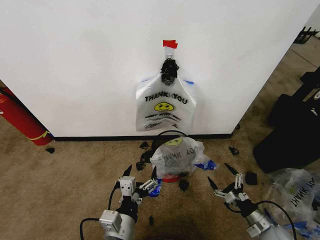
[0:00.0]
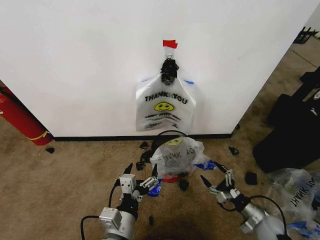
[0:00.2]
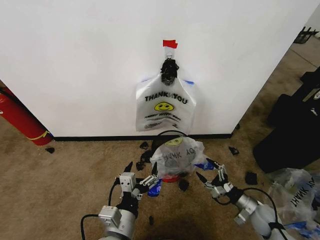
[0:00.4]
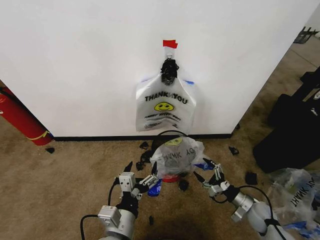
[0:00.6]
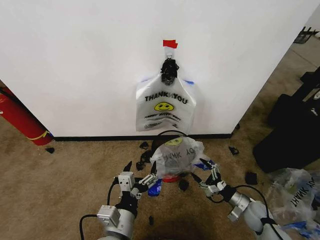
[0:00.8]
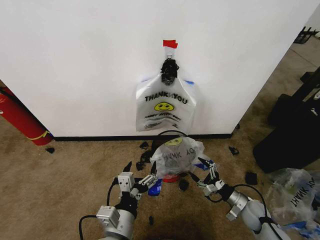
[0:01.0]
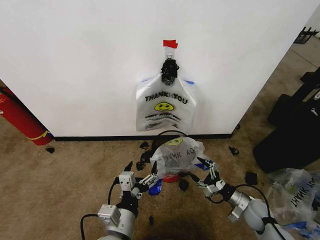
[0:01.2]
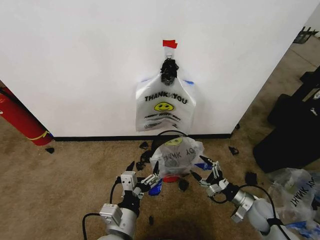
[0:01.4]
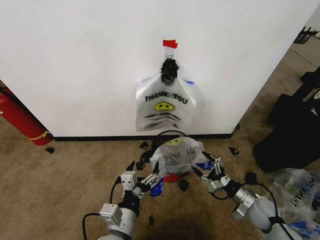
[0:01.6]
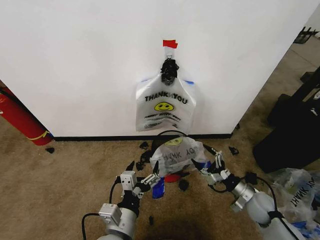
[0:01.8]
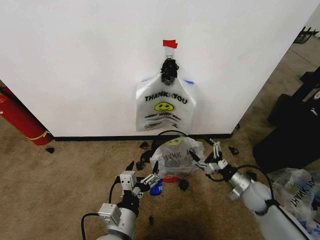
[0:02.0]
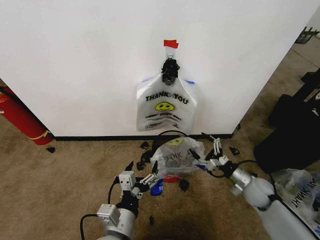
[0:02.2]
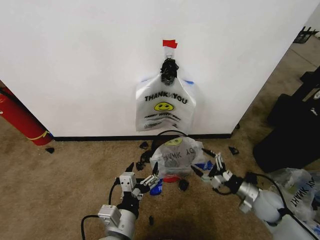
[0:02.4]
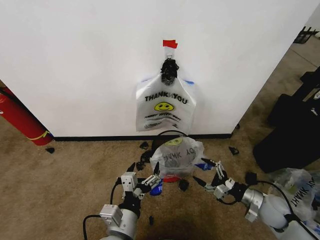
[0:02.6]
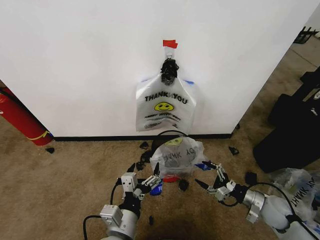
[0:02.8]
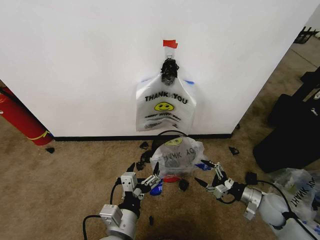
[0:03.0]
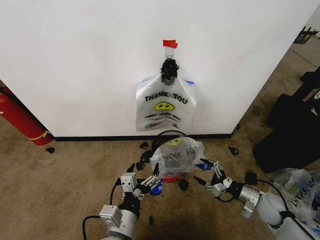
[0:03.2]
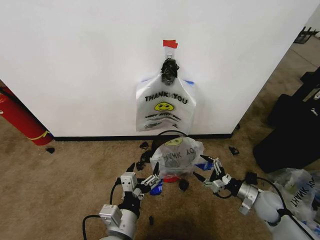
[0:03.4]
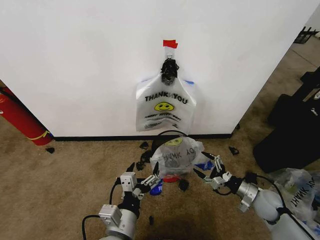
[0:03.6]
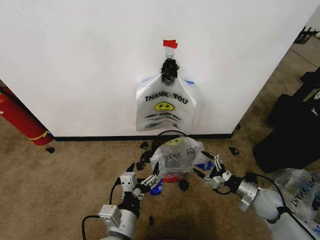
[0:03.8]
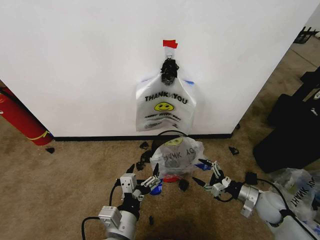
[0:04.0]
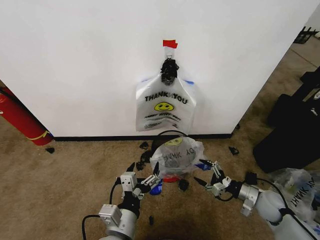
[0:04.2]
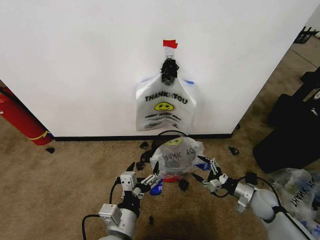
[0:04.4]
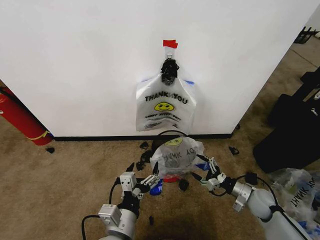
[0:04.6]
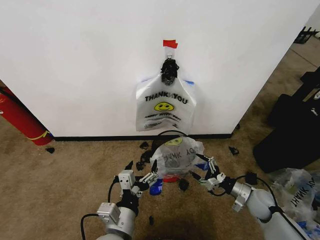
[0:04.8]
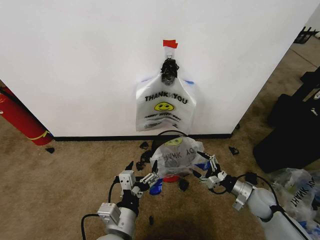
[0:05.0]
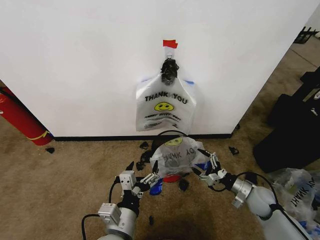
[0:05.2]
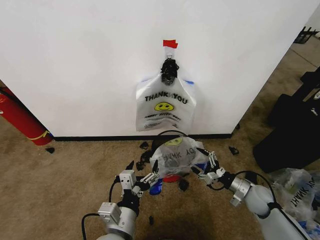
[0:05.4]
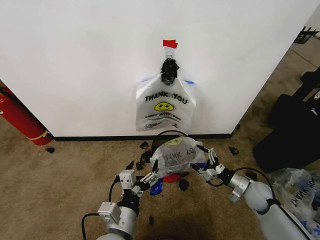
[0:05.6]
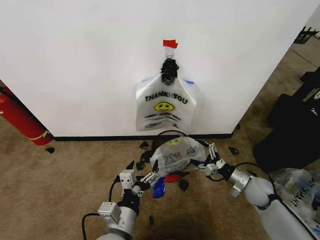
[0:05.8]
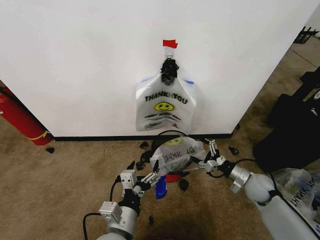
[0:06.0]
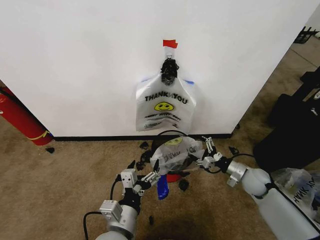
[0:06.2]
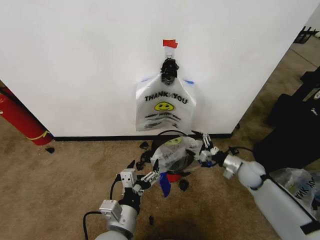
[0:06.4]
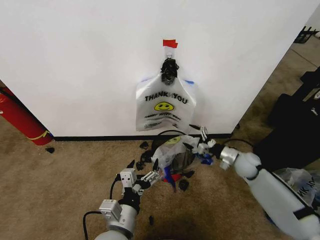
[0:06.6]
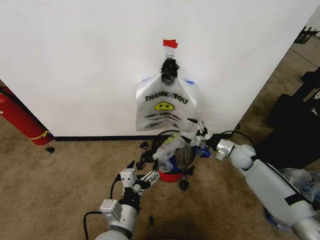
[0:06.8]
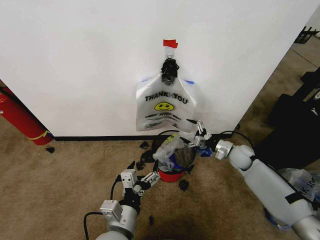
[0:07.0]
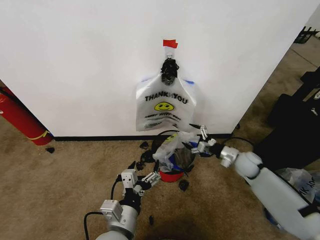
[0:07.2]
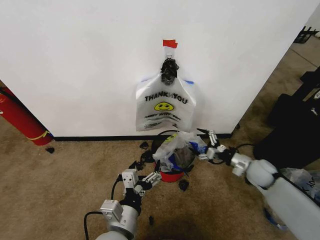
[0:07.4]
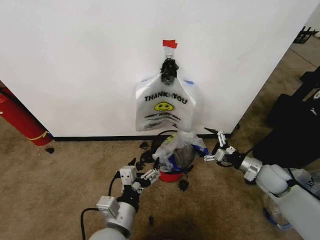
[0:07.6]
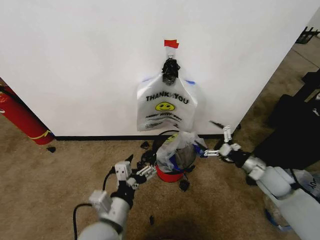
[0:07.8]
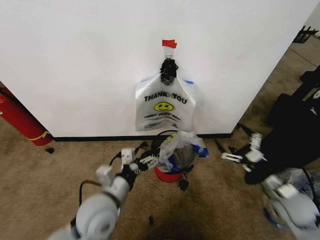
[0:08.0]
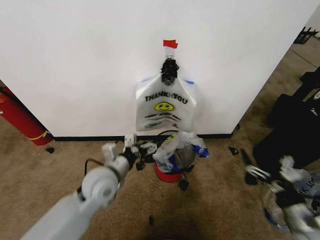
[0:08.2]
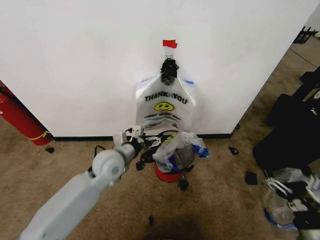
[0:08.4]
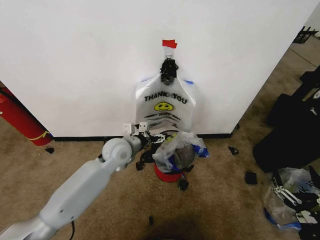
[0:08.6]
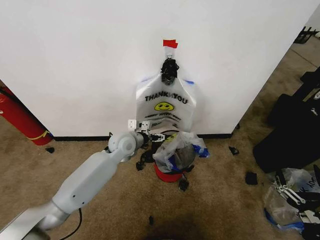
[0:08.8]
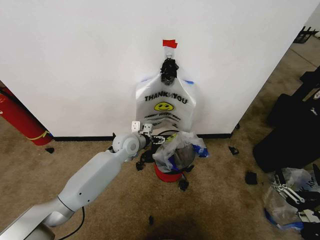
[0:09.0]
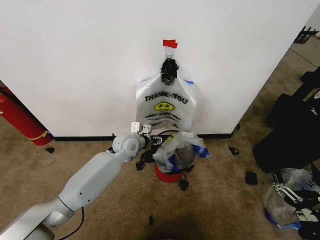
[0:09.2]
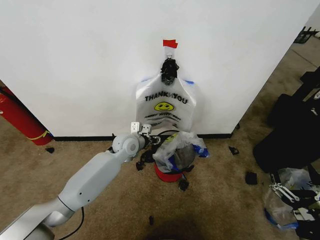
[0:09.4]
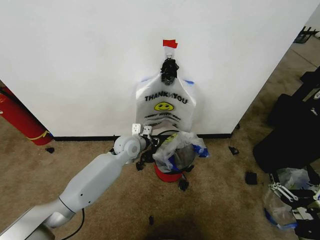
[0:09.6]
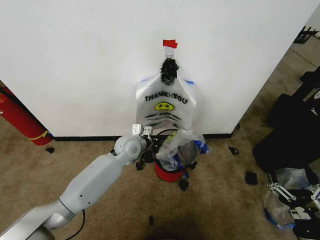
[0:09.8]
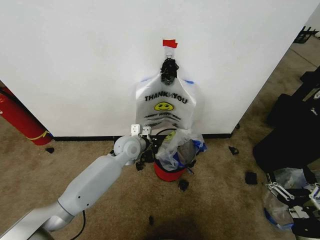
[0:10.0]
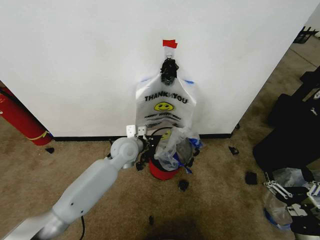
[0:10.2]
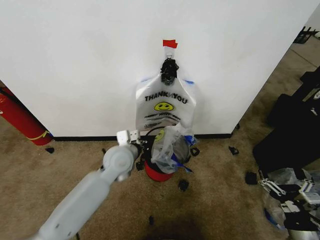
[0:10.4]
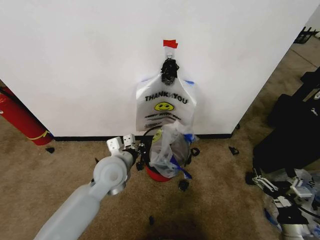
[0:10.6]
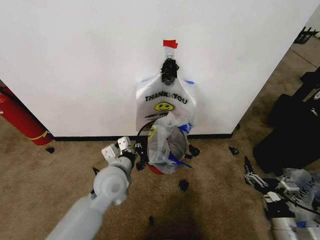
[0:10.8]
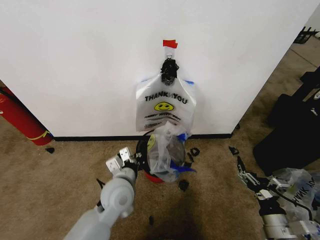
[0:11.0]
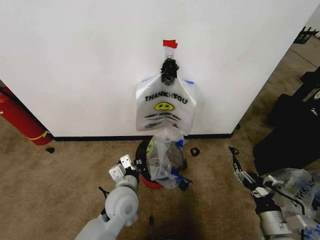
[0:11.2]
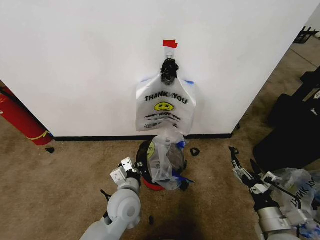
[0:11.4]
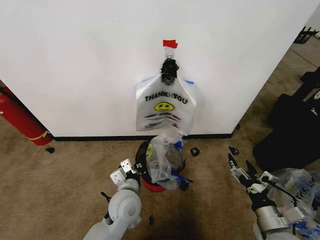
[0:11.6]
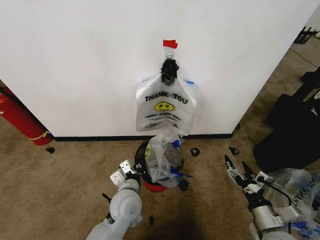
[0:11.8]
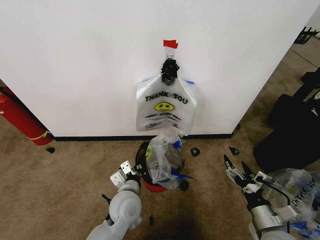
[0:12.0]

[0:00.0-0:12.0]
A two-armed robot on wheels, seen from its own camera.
Task of the whole recording: Pick up the garbage bag from the wall and place it over the trash bin.
0:00.0 to 0:01.6: The right gripper heads forward, covering approximately 10 cm.
0:03.0 to 0:04.4: There are only small adjustments of the grippers.
0:04.4 to 0:06.0: The right gripper changes place by roughly 5 cm.
0:06.0 to 0:07.6: The right gripper goes some 5 cm upward, and travels forward and back again, roughly 10 cm each way.
0:07.6 to 0:09.0: The left gripper goes some 30 cm forward, while the right gripper goes about 25 cm backward.
0:09.0 to 0:10.4: The left gripper goes roughly 10 cm backward, and closes up.
0:10.4 to 0:12.0: The right gripper travels to the left and forward by approximately 10 cm. Meanwhile the left gripper moves backward and downward, roughly 15 cm.

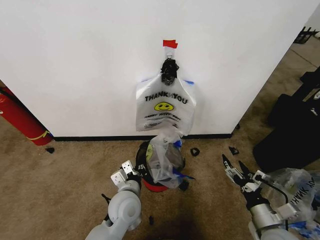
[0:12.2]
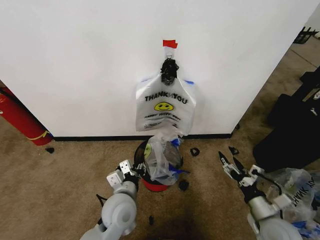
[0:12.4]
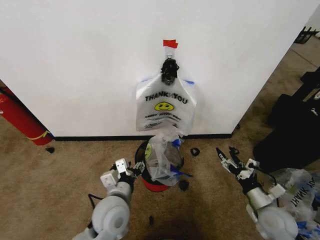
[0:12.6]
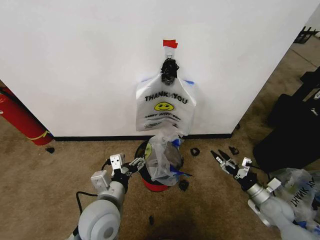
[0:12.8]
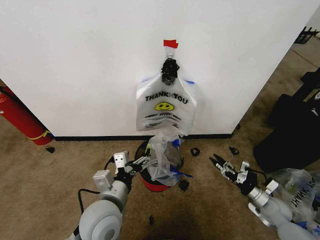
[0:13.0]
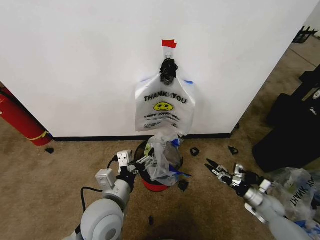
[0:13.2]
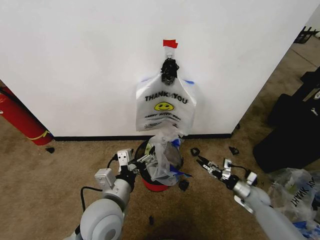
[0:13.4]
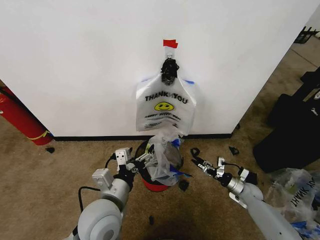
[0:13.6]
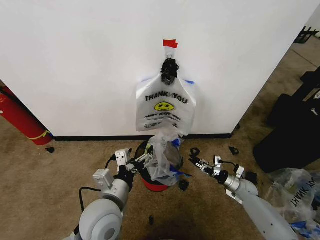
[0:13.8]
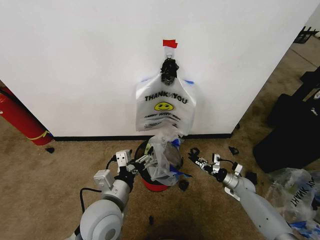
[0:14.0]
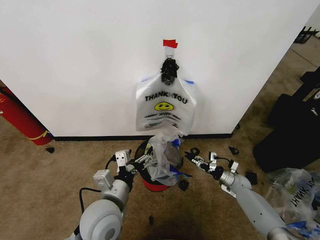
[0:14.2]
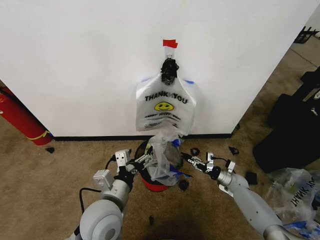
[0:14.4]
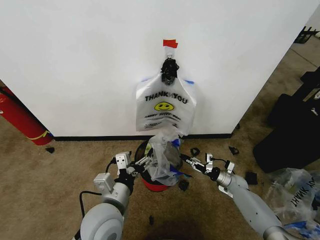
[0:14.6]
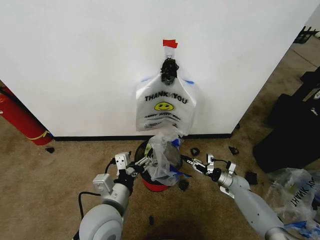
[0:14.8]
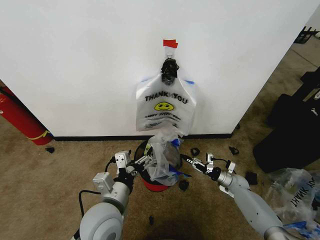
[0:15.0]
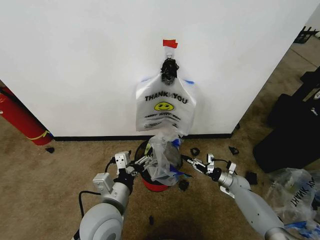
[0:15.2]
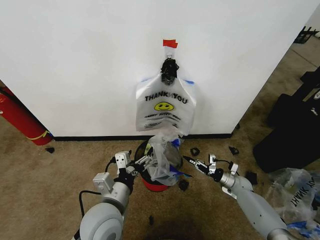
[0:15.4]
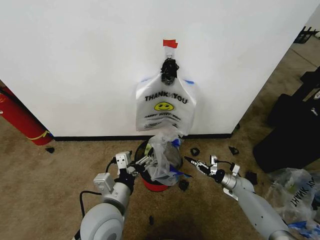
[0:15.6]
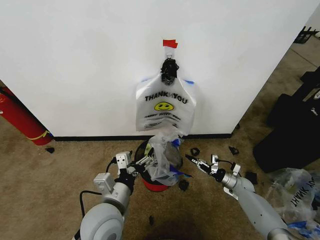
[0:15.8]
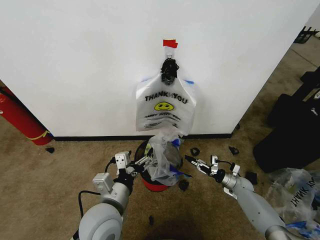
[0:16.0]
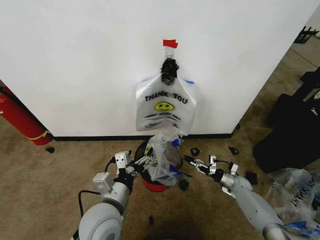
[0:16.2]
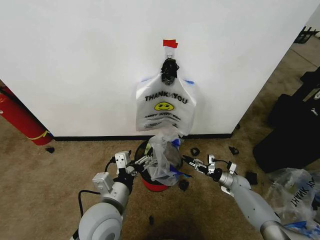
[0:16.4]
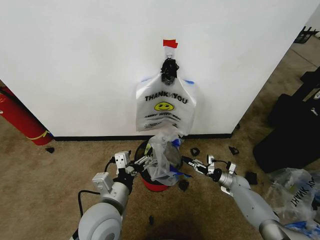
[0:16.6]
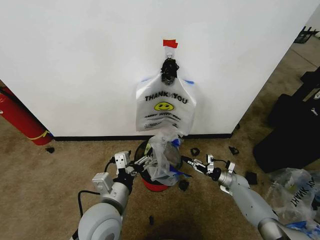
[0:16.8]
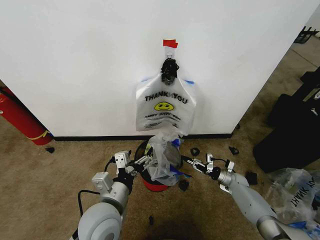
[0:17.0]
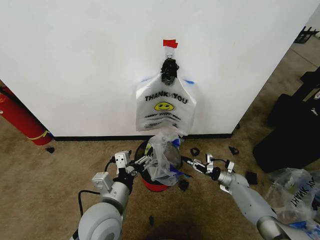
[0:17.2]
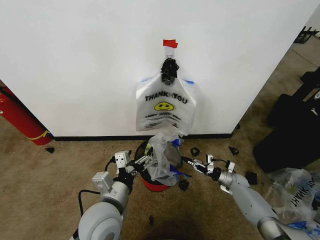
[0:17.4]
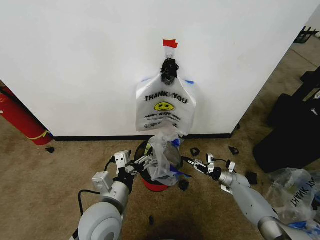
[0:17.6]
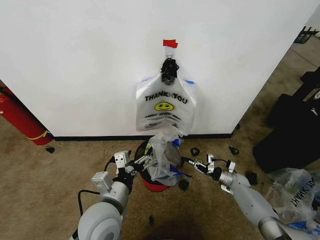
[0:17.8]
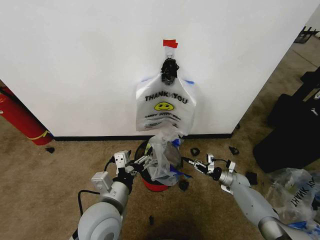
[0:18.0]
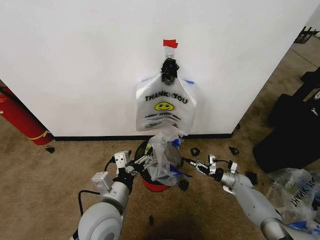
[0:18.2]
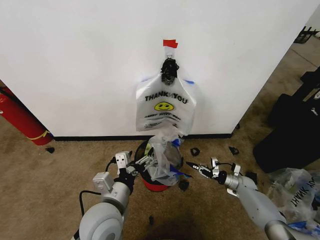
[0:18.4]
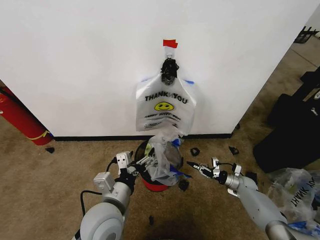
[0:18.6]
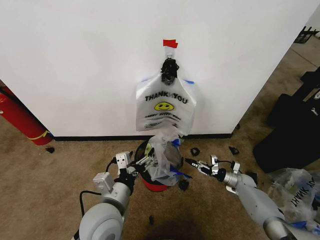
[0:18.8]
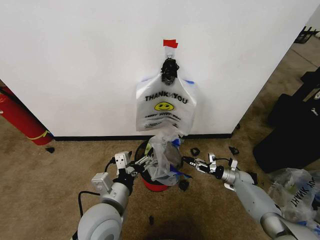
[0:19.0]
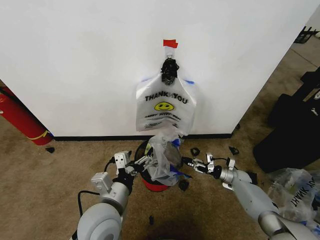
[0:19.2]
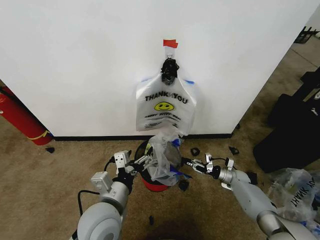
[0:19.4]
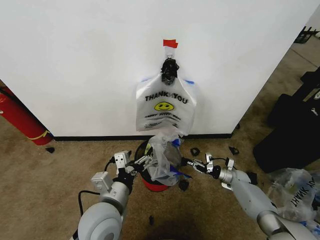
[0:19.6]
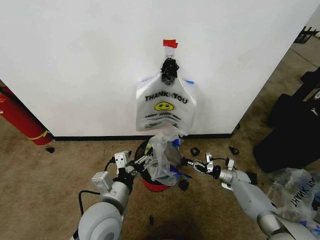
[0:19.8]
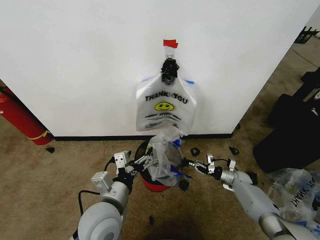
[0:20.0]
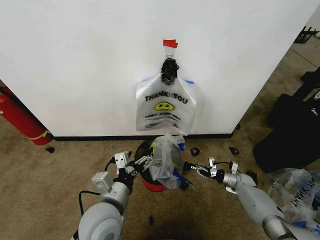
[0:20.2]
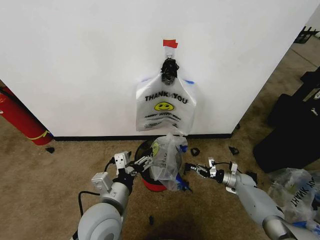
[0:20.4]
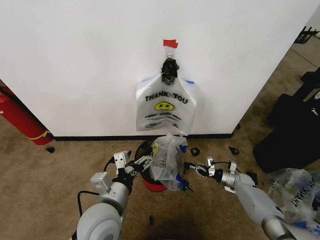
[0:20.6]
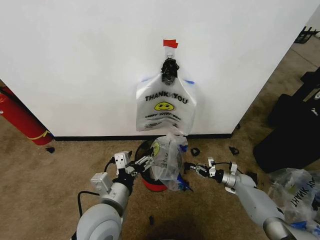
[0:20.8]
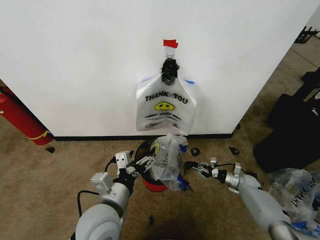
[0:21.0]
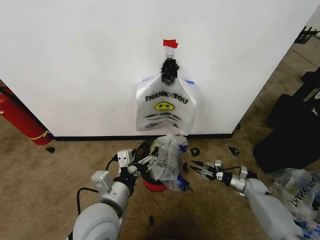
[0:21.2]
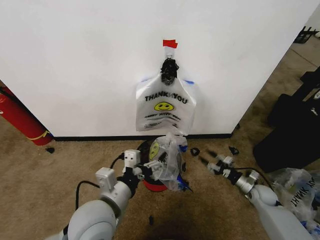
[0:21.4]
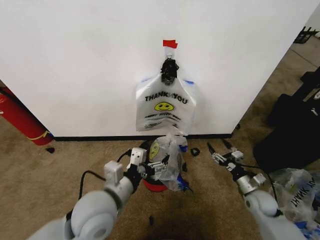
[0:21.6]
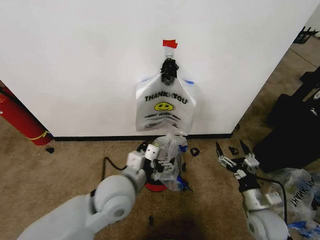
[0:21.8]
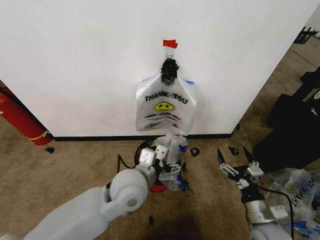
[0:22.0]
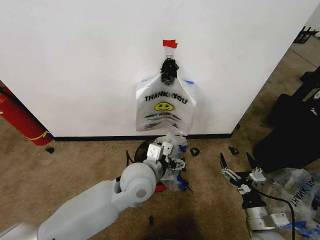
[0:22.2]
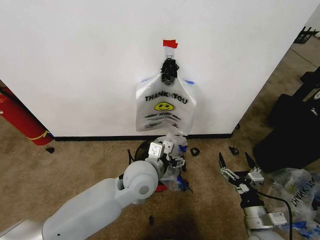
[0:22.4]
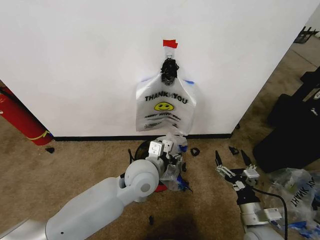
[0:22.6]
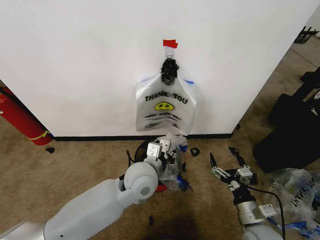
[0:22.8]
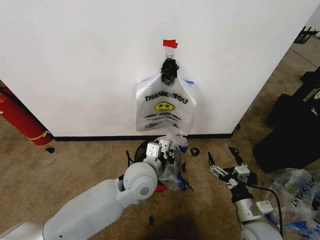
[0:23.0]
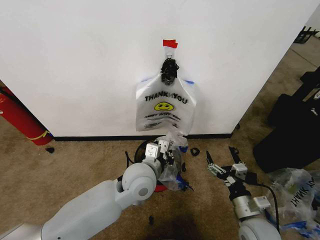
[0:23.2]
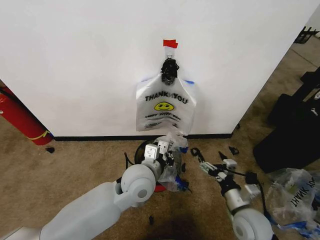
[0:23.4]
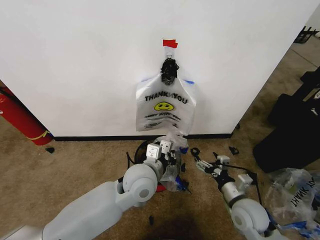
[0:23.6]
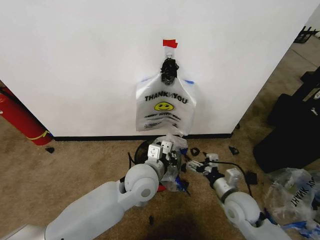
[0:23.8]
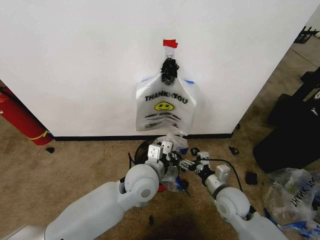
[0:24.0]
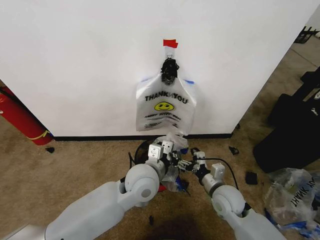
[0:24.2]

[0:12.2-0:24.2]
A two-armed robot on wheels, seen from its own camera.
Task of the whole recording: Pick up the garbage bag from the wall and place it over the trash bin.
0:12.2 to 0:13.8: The left gripper is displaced upward and backward by about 10 cm, and opens its fingers; the right gripper is displaced forward and downward by some 30 cm.
0:13.8 to 0:15.2: The right gripper closes its fingers.
0:15.2 to 0:16.6: The grippers move only a little.
0:16.6 to 0:18.2: The right gripper closes its fingers.
0:18.2 to 0:19.8: The right gripper opens and closes again.
0:19.8 to 0:21.2: The right gripper travels backward by roughly 5 cm, and opens.
0:21.2 to 0:22.6: The right gripper travels backward, upward and to the left by approximately 30 cm, and opens its fingers. The left gripper moves forward and to the right, about 15 cm, and closes.
0:22.6 to 0:24.2: The right gripper shifts about 15 cm forward and to the left; the left gripper closes its fingers.
